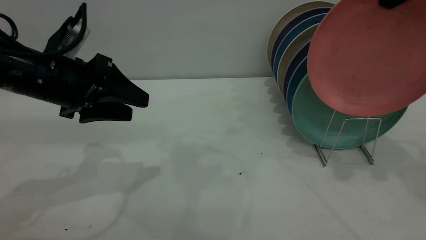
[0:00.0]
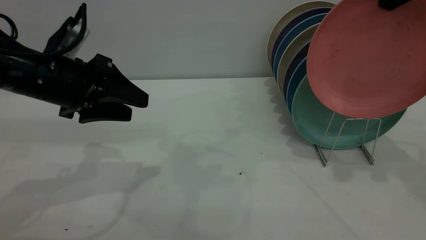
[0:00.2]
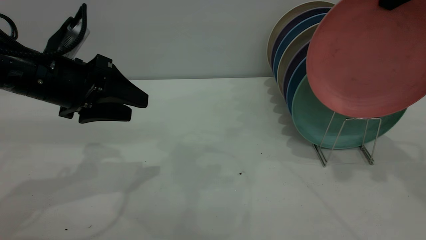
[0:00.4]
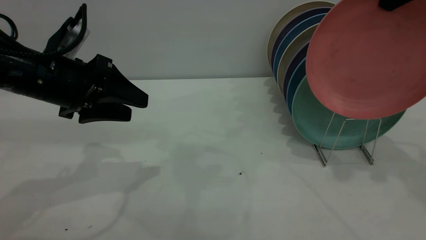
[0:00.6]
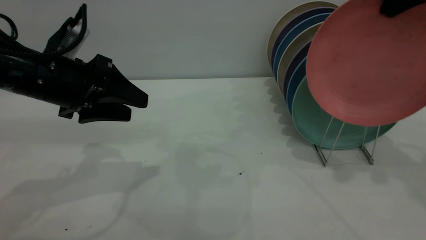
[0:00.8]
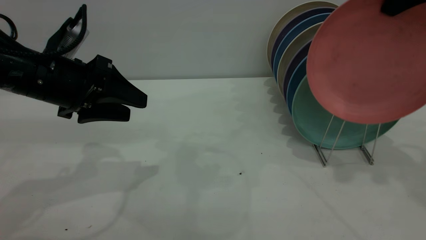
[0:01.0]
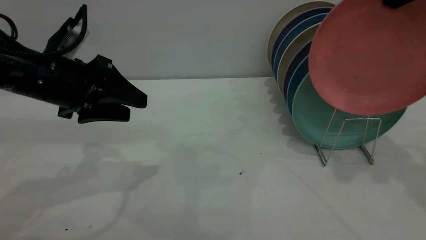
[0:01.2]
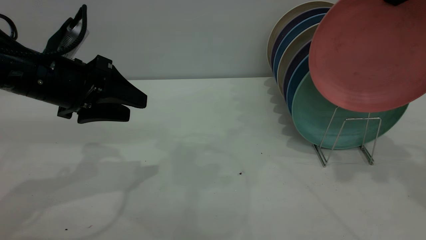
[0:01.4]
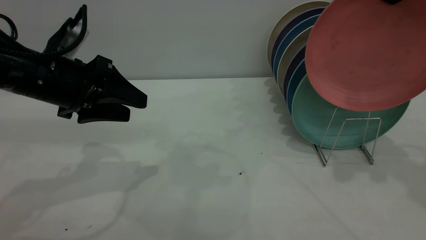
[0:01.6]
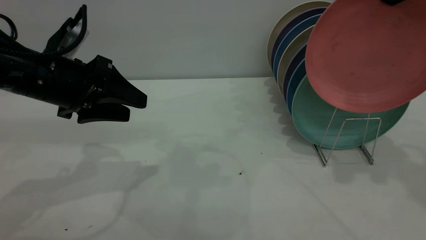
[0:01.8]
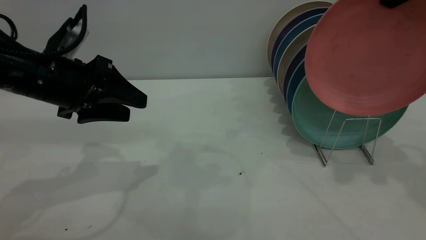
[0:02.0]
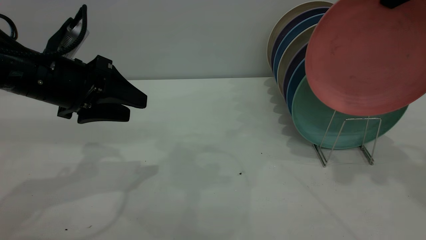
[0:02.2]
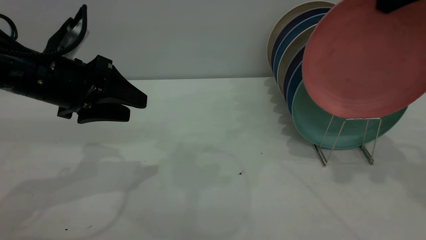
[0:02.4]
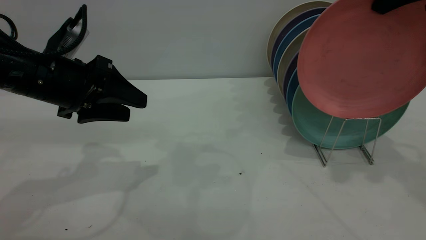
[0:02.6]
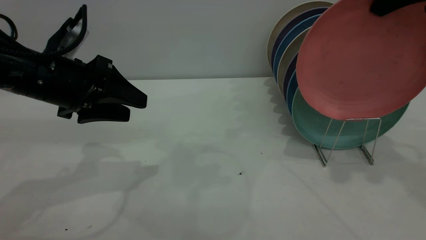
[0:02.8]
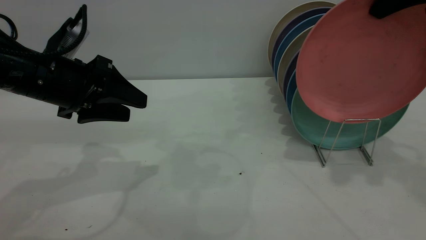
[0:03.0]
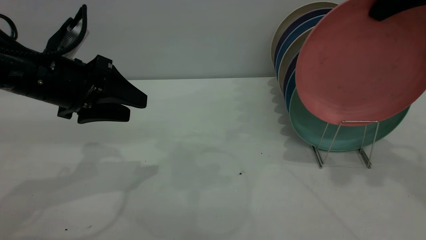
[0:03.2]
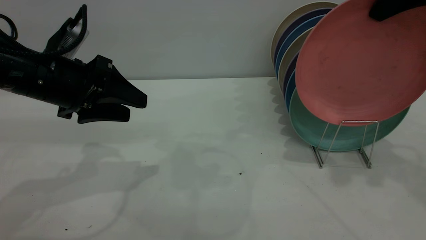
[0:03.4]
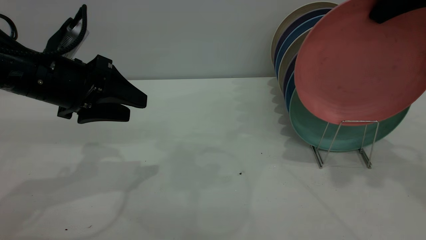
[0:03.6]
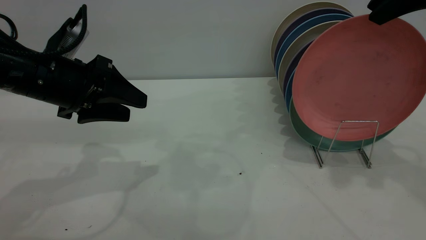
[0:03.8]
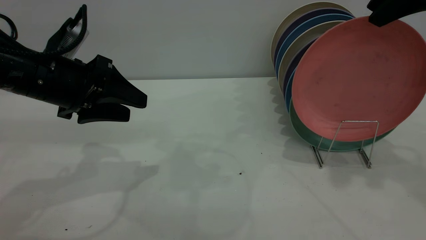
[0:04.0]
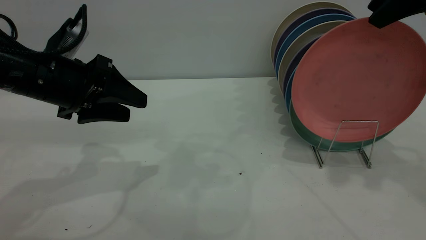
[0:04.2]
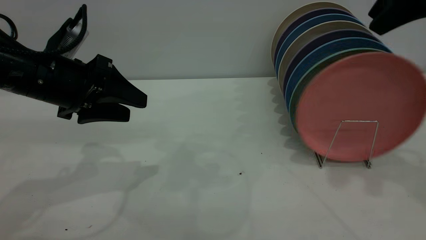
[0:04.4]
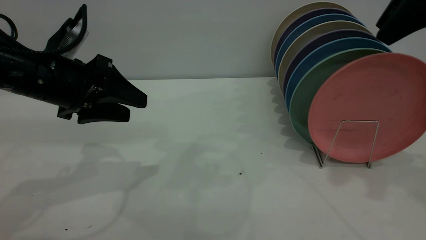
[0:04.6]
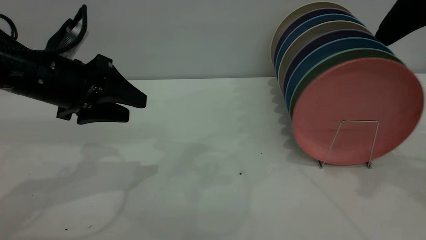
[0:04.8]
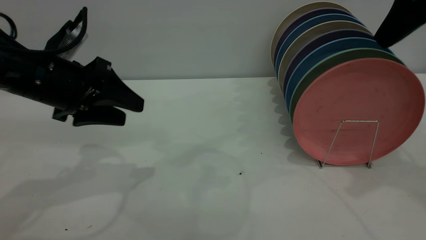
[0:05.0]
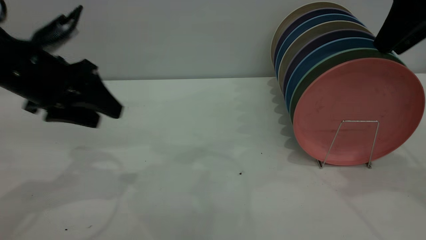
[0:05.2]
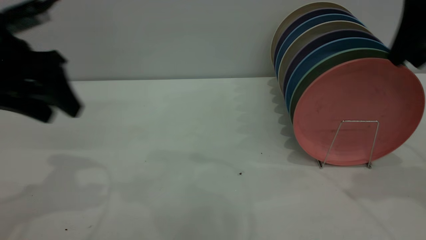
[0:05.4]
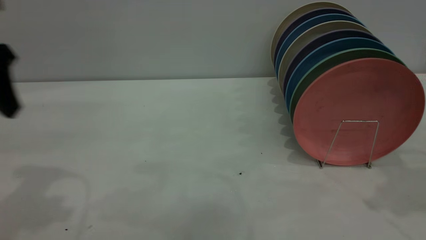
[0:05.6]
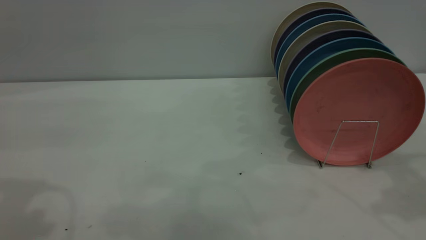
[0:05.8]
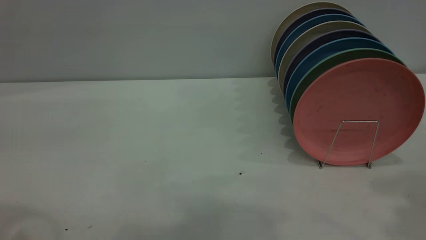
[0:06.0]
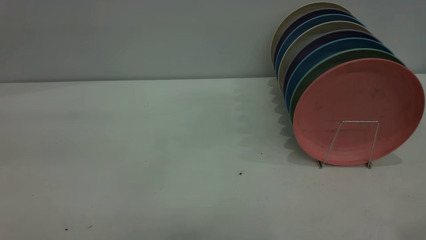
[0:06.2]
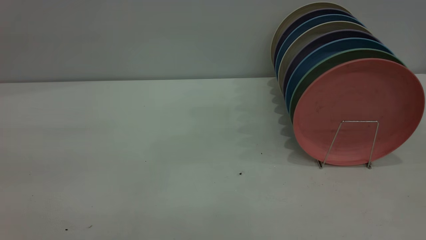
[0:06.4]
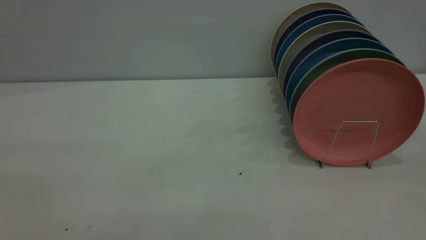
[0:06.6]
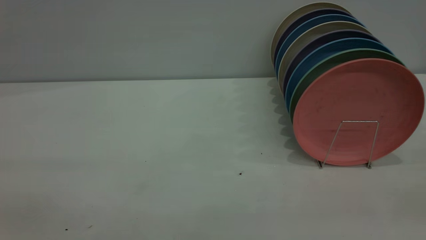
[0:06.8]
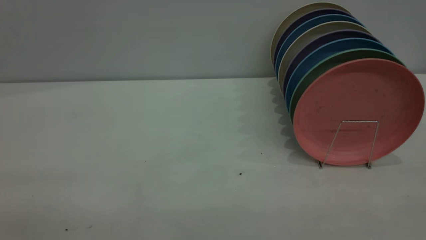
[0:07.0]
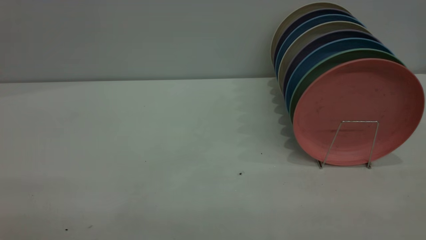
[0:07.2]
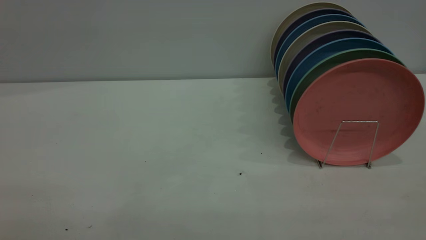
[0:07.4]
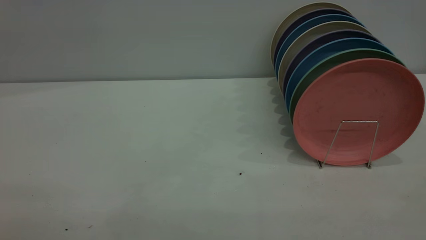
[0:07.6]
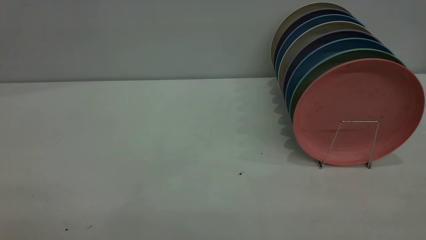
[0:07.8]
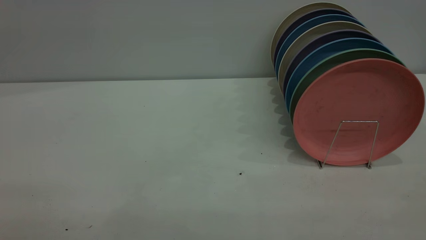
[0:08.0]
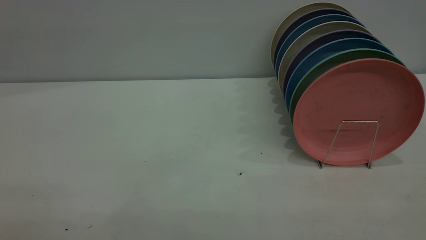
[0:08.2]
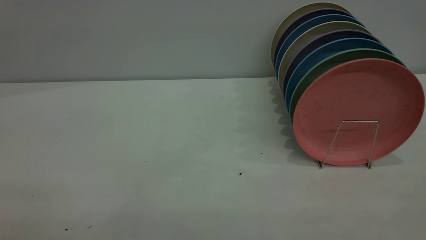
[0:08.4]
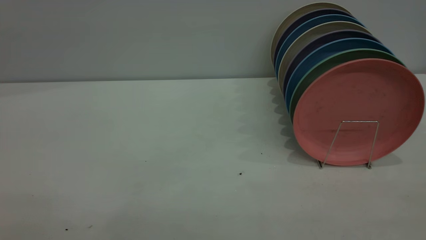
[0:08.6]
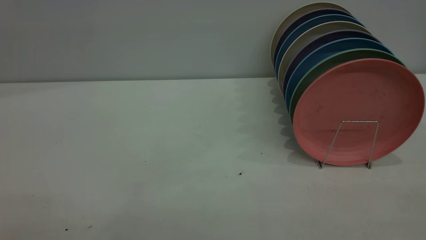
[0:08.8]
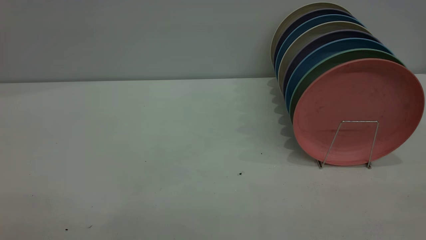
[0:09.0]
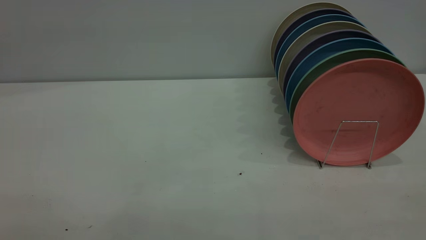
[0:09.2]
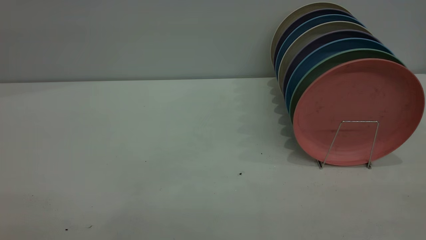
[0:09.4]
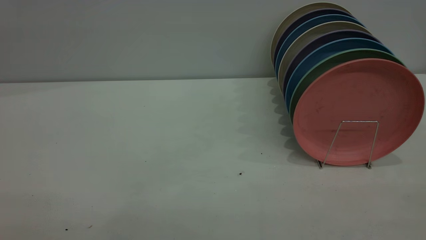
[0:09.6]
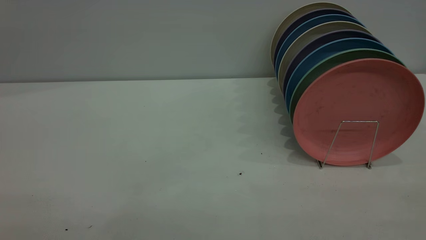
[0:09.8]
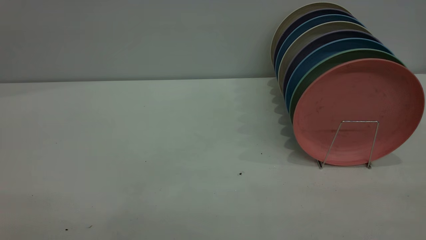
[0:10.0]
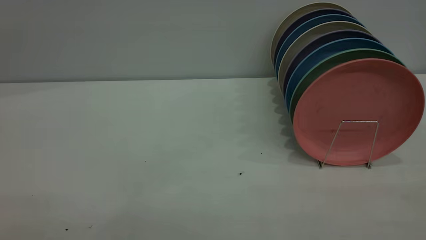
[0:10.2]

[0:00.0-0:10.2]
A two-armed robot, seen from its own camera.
Task of the whole recording: the left gripper grasp the pink plate, the left gripper pass the pink plate to the right gripper, and the right gripper place the pink plate on the plate rack.
Step, 0:00.0 to 0:05.4: Place the plate on the shelf.
0:00.0 to 0:01.4: Neither gripper changes place.
0:01.4 to 0:03.0: There are only small adjustments of the grippers.
0:03.0 to 0:04.4: The right gripper opens up.
0:04.4 to 0:05.8: The left gripper is displaced upward and backward by some 20 cm. Meanwhile the right gripper heads backward, covering approximately 5 cm, and opens its fingers.
